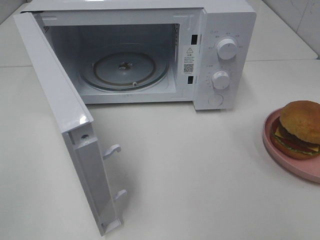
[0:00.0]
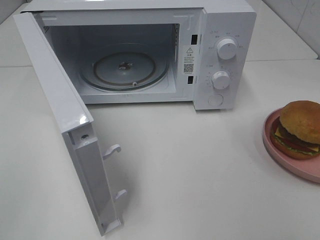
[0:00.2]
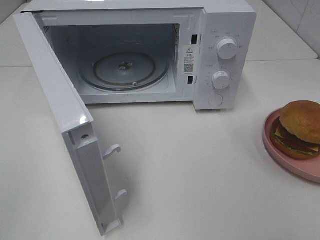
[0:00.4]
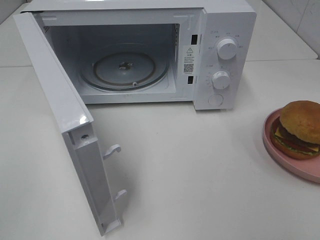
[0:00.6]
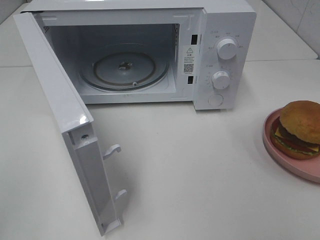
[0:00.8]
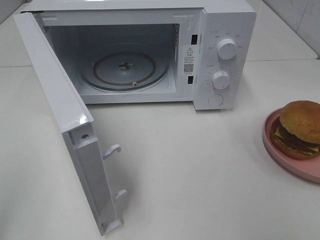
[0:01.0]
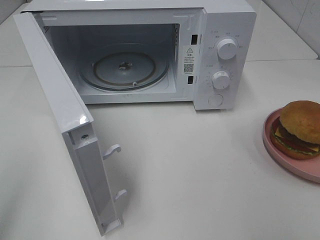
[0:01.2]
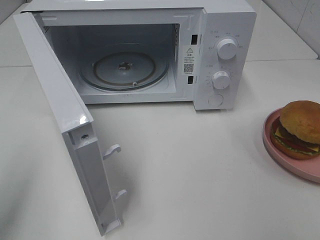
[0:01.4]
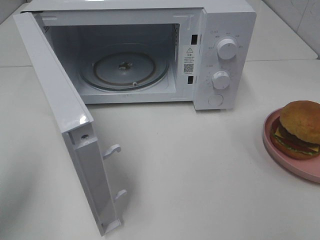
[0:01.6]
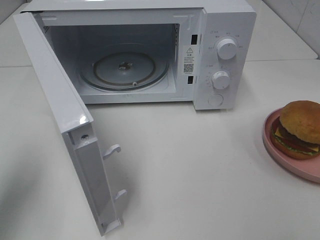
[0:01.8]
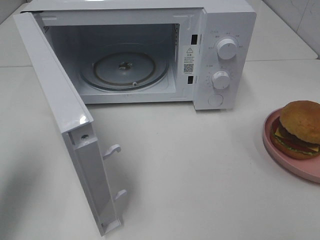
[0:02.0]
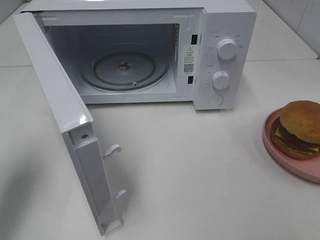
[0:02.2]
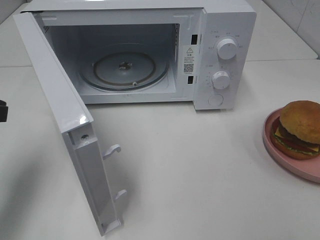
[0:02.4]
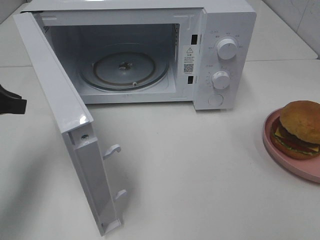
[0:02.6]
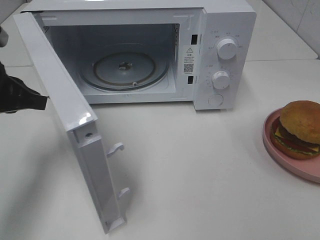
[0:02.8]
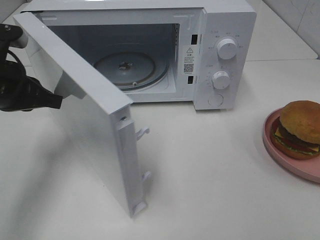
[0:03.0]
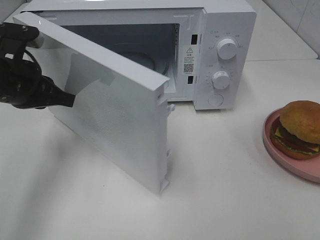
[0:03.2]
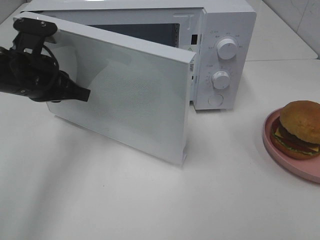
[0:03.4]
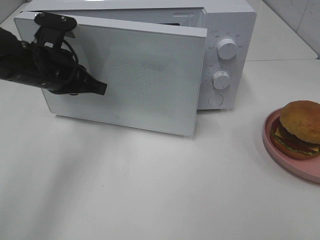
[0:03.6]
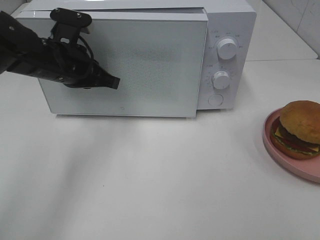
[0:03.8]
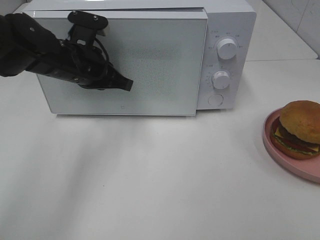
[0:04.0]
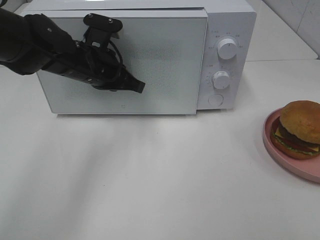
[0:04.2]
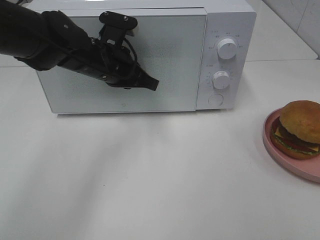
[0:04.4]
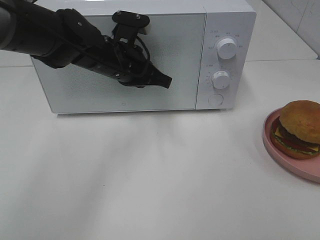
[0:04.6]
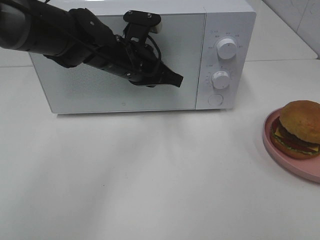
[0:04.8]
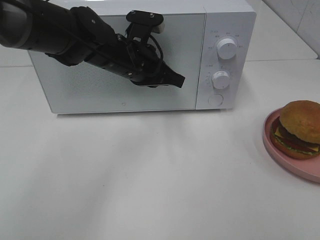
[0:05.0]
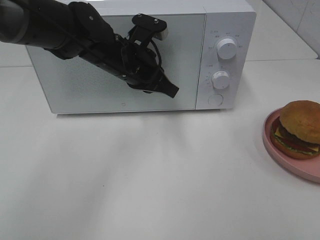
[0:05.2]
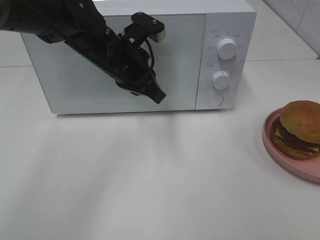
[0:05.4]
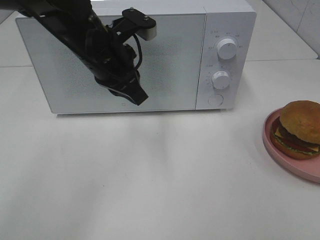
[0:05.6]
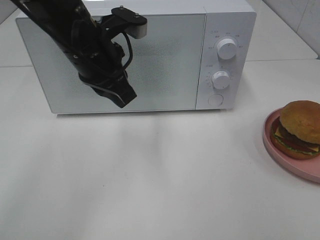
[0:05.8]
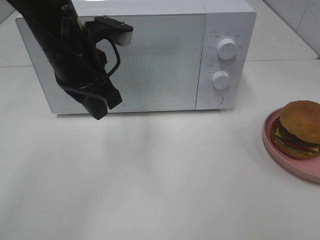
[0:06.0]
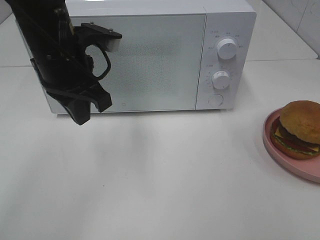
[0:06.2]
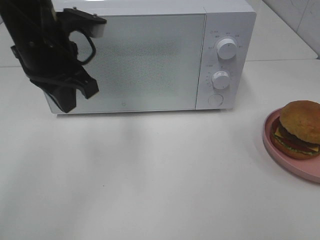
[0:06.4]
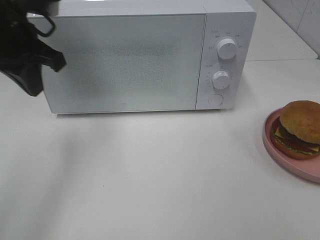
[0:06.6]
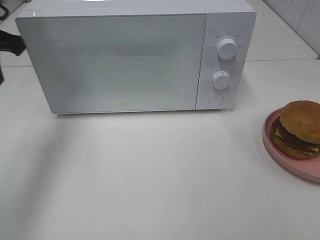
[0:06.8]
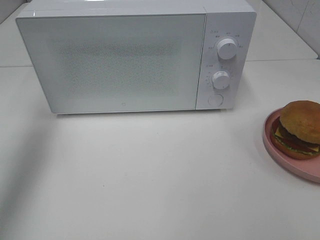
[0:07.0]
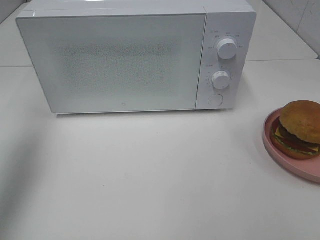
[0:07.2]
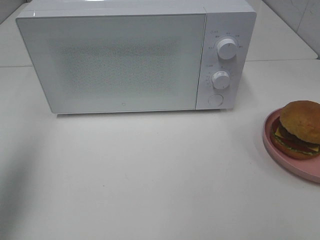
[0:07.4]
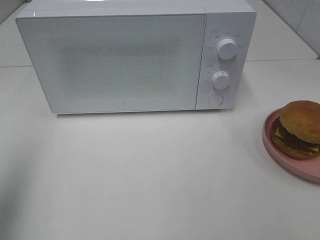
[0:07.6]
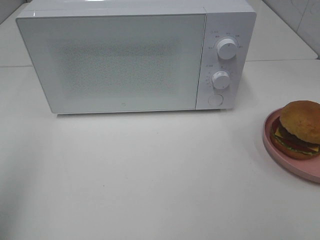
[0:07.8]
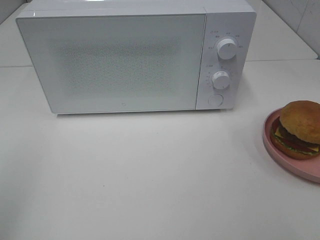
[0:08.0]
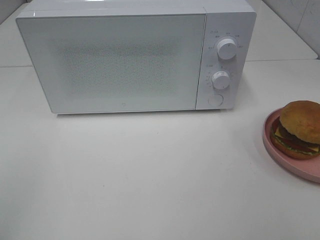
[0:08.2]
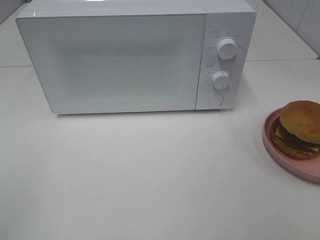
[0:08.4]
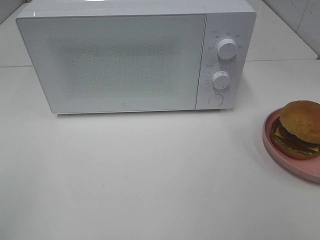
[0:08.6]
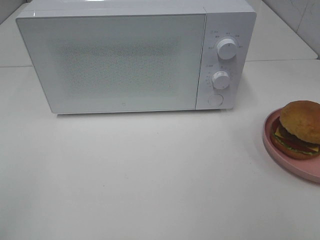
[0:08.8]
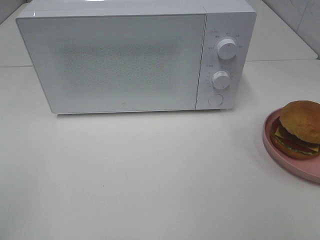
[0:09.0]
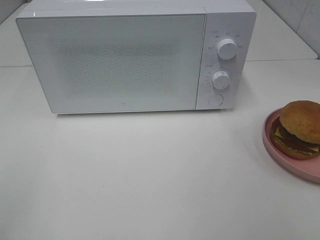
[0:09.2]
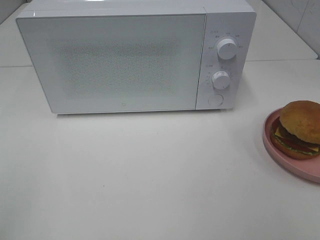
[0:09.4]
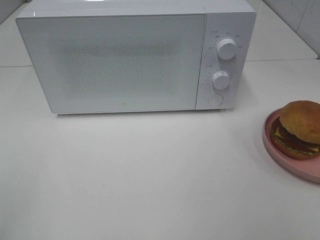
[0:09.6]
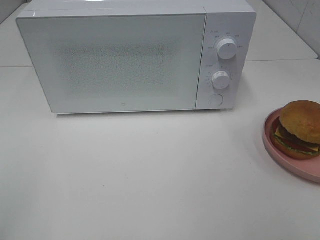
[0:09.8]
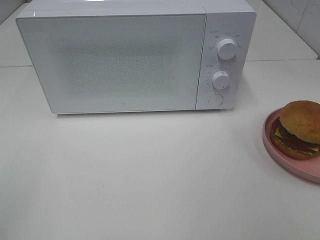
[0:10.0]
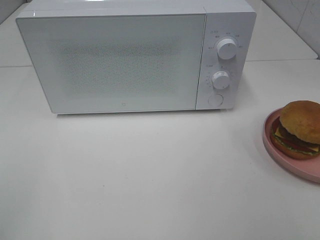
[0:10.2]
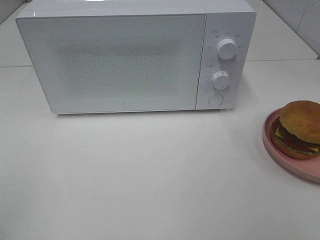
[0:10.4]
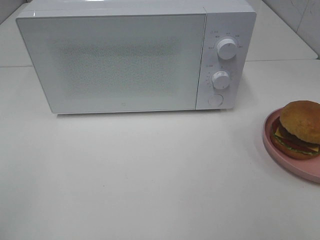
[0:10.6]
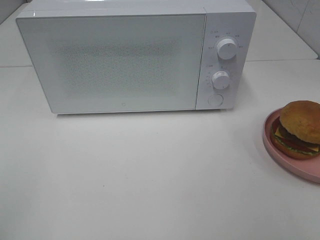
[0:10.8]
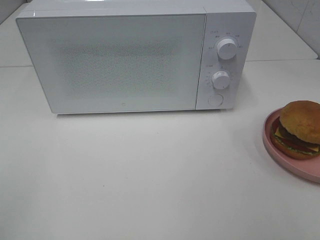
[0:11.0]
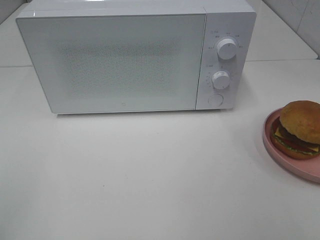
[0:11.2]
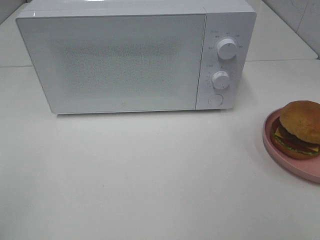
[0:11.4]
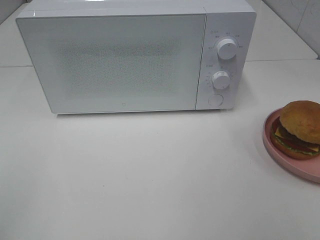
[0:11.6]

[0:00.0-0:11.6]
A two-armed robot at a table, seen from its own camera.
Task of the whole recording: Heat the burger.
Step, 0:00.0 to 0:05.0: Left hand: close the microwave door.
0:00.0 to 0:01.4: The left gripper goes approximately 10 cm forward.
0:01.4 to 0:02.8: The left gripper travels forward and downward by about 20 cm.
0:02.8 to 0:04.4: The left gripper shifts about 20 cm to the right and forward.
0:04.4 to 0:05.8: The left gripper is displaced upward and backward by about 10 cm.
0:05.8 to 0:07.2: The left gripper goes roughly 25 cm to the left.
0:07.2 to 0:08.8: The left gripper travels backward by approximately 25 cm.
0:08.8 to 0:10.2: Both grippers stay about where they are.
0:10.2 to 0:11.6: Both grippers stay put.

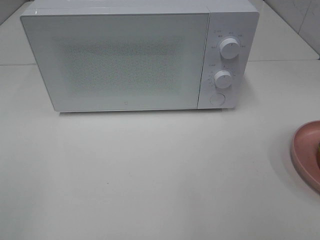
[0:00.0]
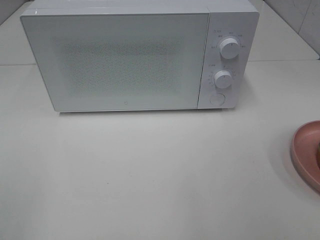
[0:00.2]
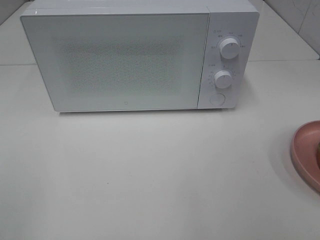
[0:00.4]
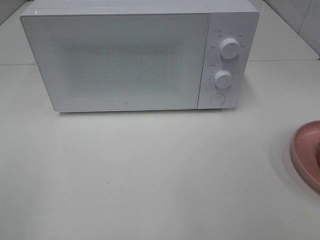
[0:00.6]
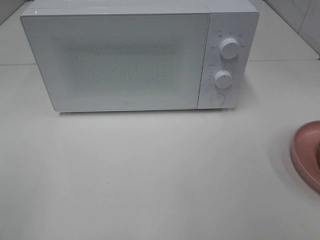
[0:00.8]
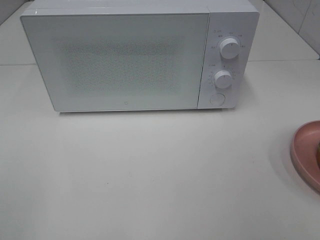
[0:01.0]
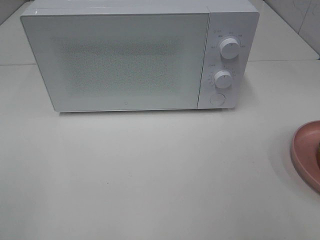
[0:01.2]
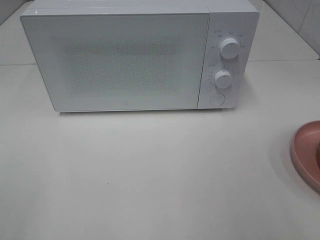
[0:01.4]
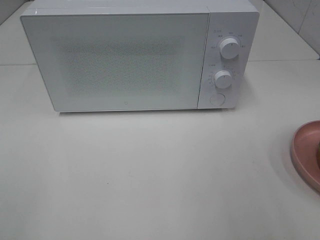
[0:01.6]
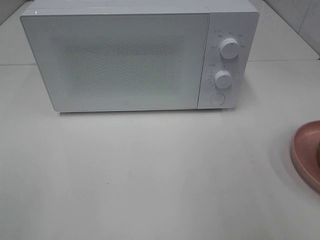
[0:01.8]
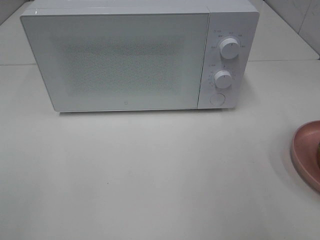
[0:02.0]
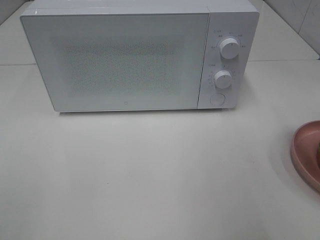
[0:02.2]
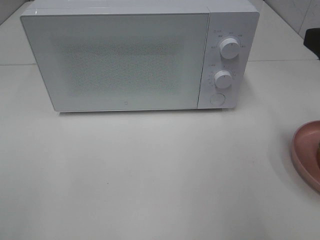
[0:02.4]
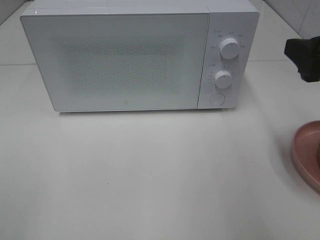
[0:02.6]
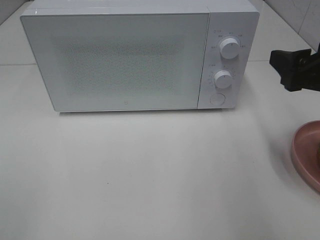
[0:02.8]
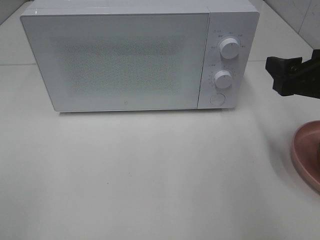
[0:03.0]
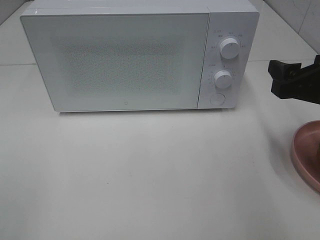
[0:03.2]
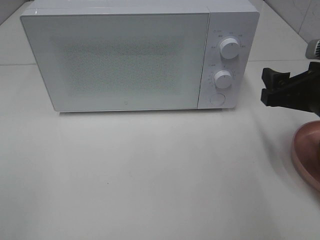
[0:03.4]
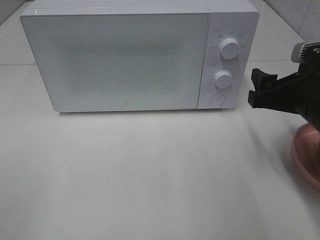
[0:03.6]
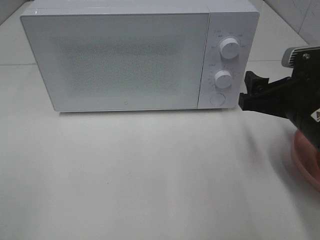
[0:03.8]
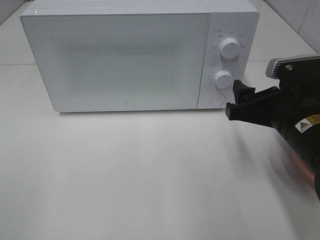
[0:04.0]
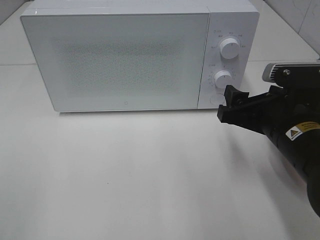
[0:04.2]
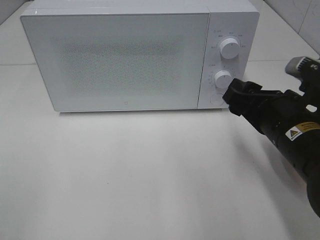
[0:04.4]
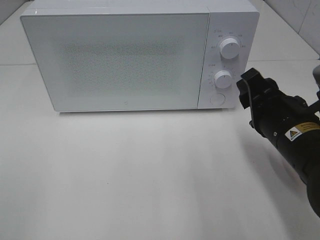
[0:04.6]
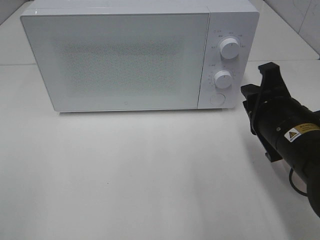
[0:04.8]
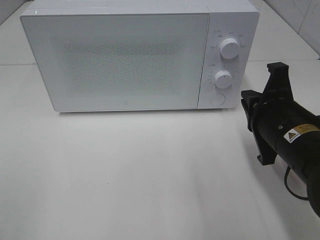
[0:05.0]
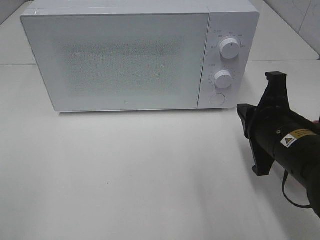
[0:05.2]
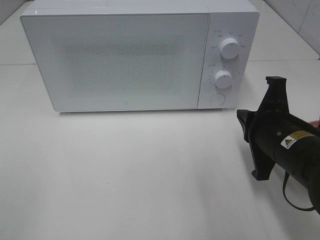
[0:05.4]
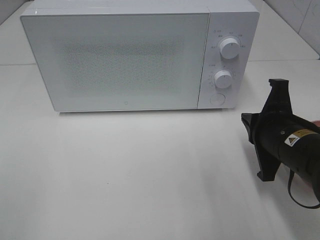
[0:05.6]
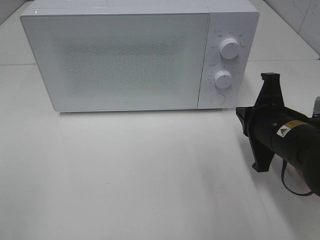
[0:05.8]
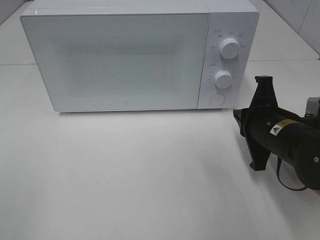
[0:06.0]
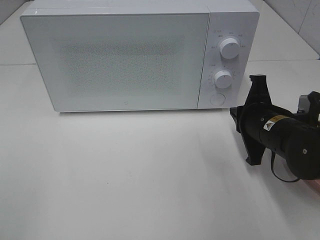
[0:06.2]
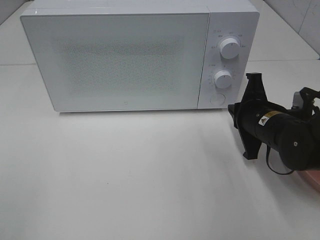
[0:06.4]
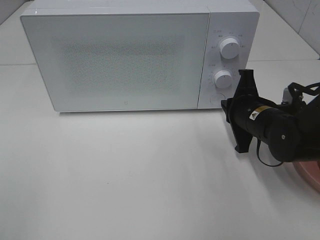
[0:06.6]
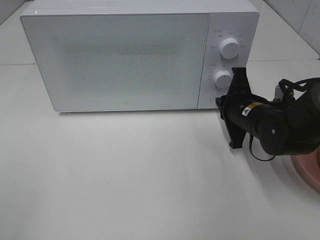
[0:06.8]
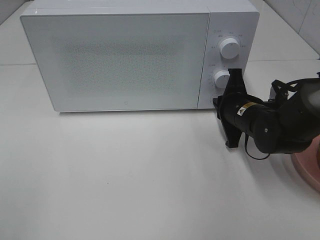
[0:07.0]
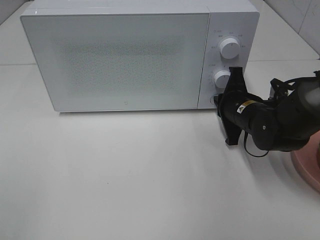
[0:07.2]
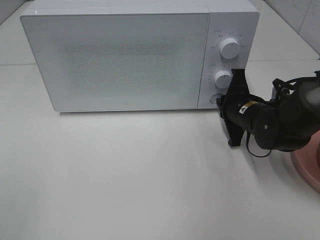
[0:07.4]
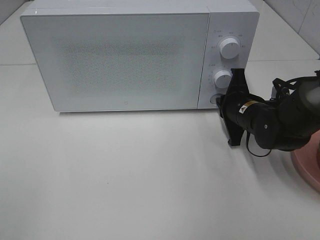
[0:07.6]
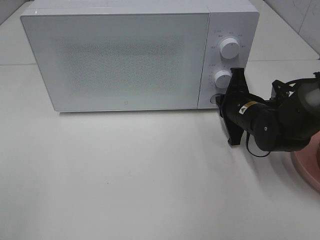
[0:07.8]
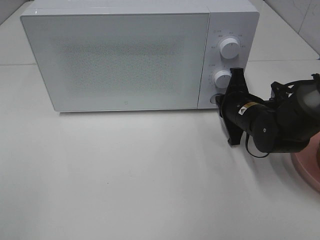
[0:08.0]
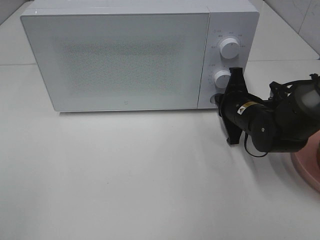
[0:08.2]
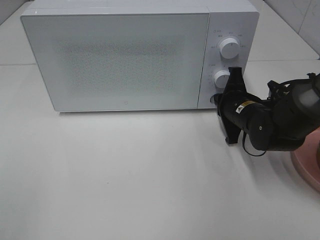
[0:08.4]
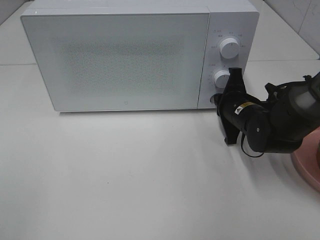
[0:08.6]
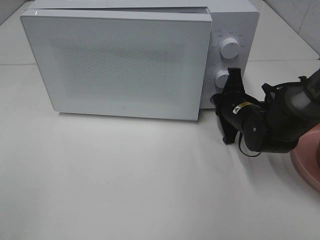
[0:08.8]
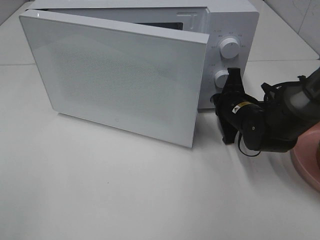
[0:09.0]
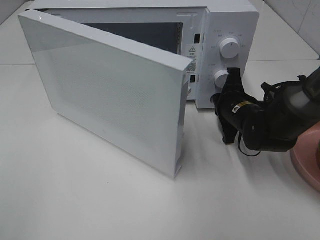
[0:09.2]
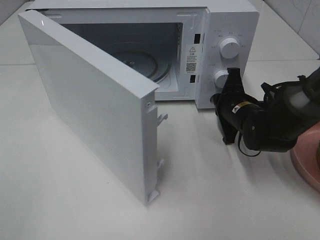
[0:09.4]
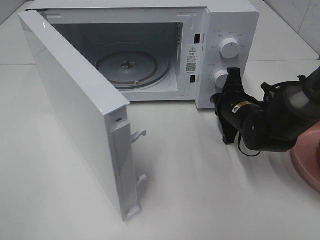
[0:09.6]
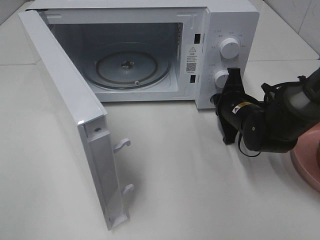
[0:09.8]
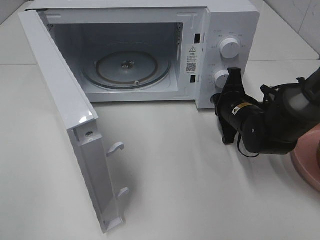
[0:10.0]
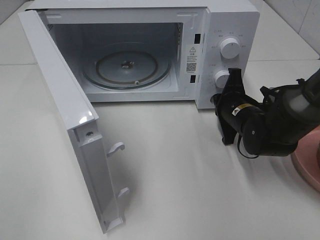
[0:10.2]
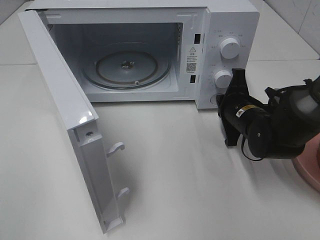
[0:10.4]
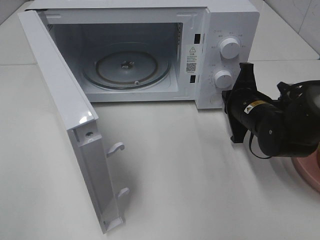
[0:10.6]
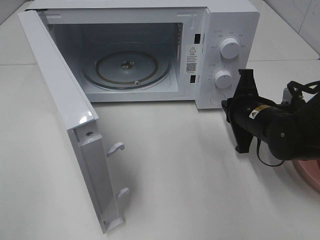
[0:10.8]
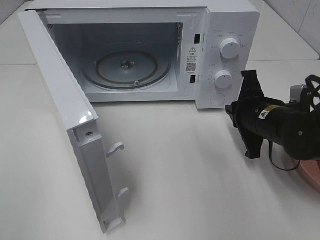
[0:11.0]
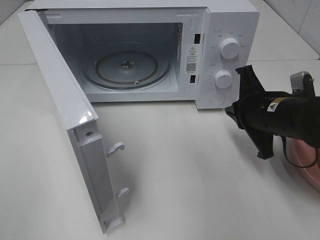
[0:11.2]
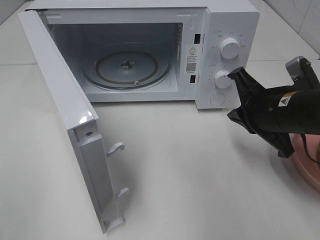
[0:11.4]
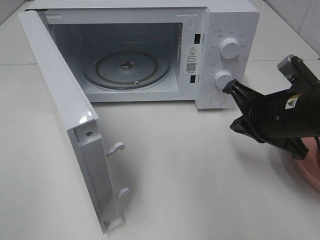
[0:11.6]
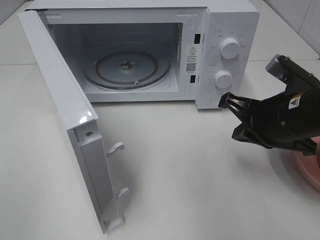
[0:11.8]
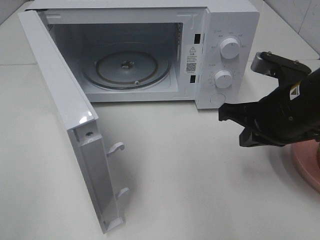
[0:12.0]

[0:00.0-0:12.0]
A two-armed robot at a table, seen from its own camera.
Task of the whole recording: Heat the burger.
Step, 0:00.0 to 0:10.4: Right hand: press the switch.
0:01.6 to 0:03.0: The right gripper heads forward and downward, covering roughly 15 cm.
0:03.0 to 0:04.4: The right gripper is displaced to the left and downward by roughly 10 cm.
0:04.4 to 0:06.0: The right gripper moves about 5 cm, and closes up.
0:06.0 to 0:07.6: The right gripper is displaced forward by approximately 10 cm.
0:07.6 to 0:09.0: The grippers stay close to where they were, moving slightly.
0:10.4 to 0:12.0: The right gripper shifts about 15 cm upward and backward.
